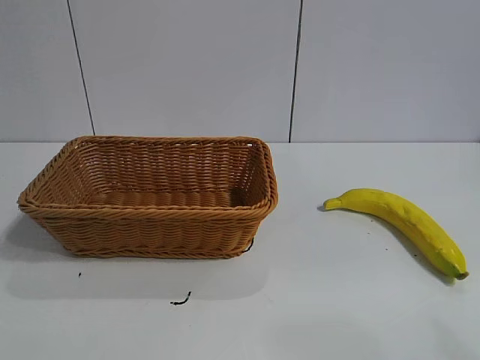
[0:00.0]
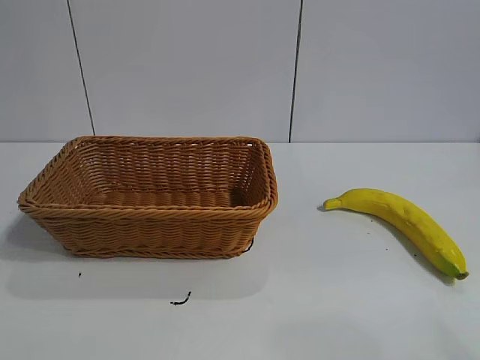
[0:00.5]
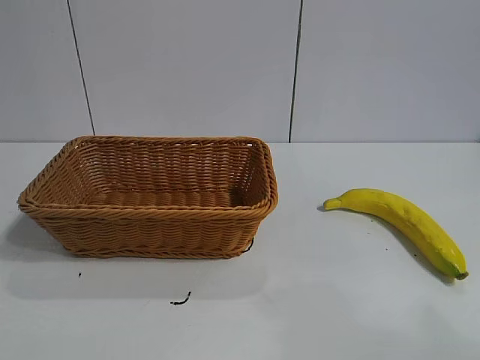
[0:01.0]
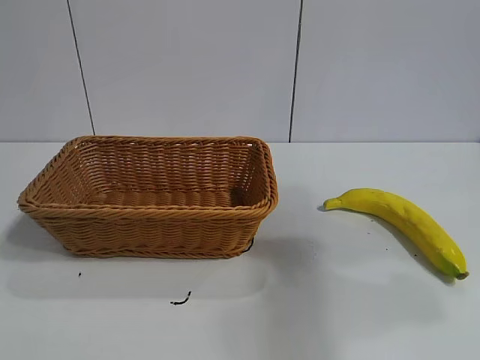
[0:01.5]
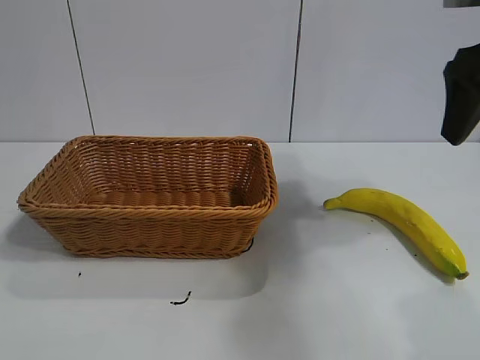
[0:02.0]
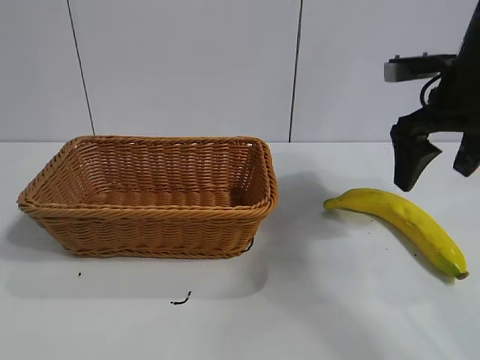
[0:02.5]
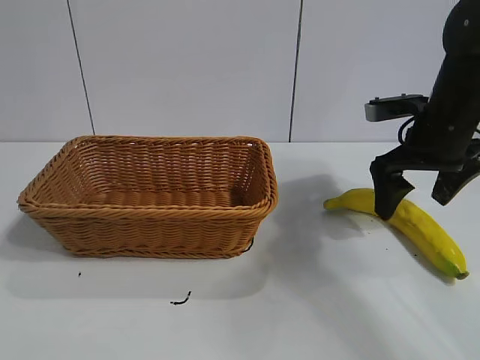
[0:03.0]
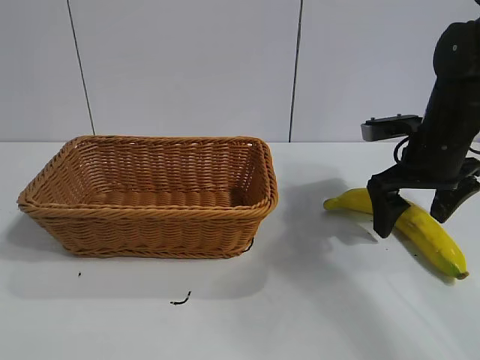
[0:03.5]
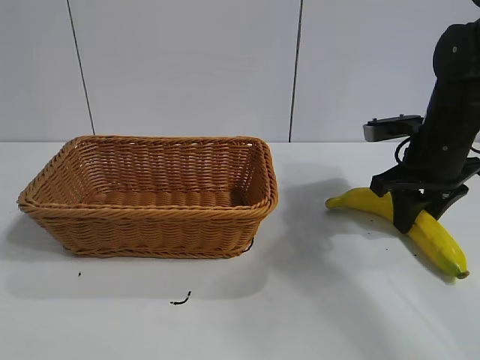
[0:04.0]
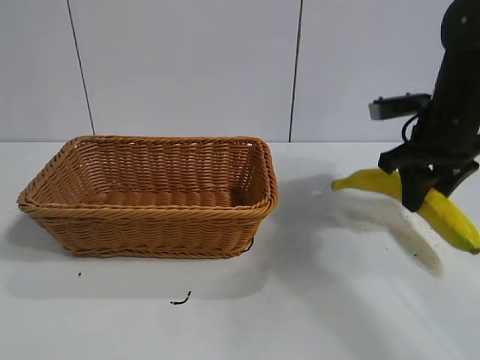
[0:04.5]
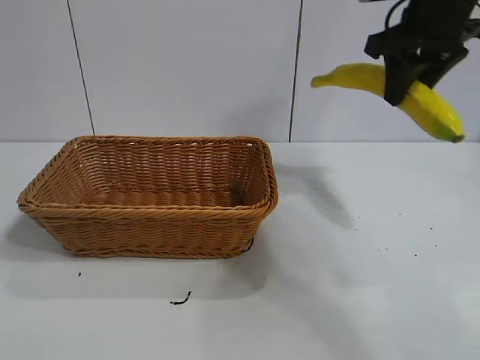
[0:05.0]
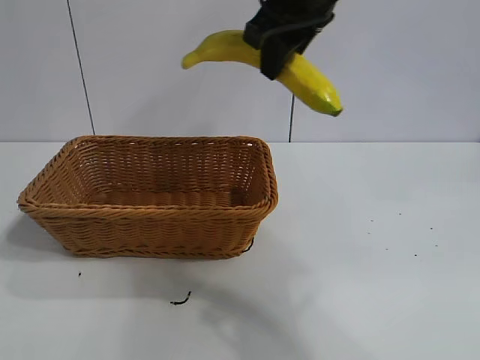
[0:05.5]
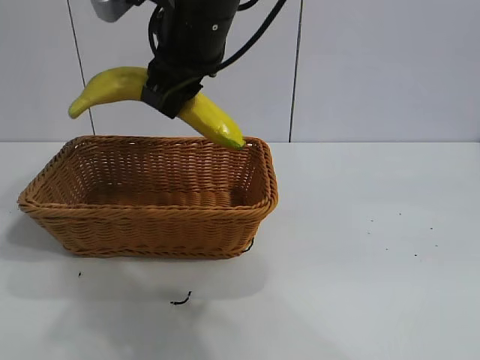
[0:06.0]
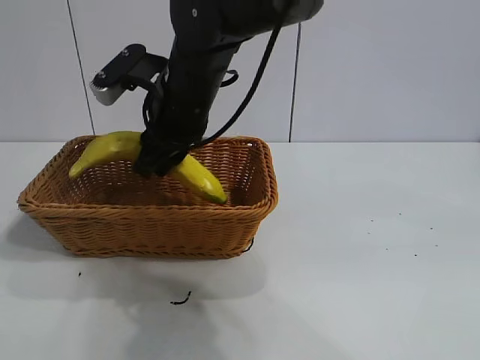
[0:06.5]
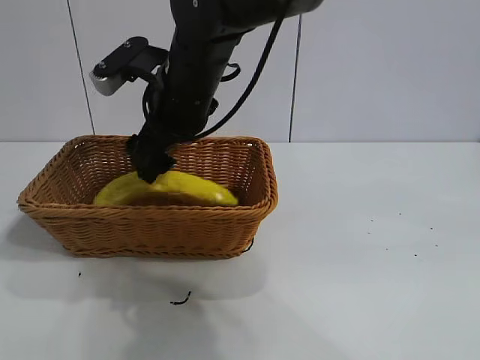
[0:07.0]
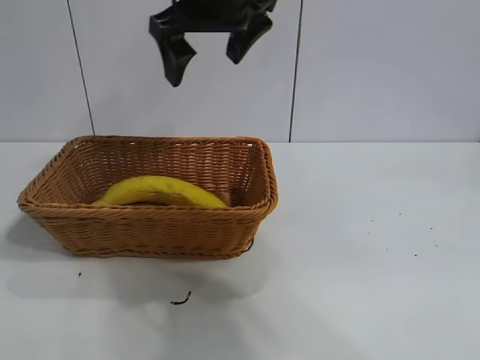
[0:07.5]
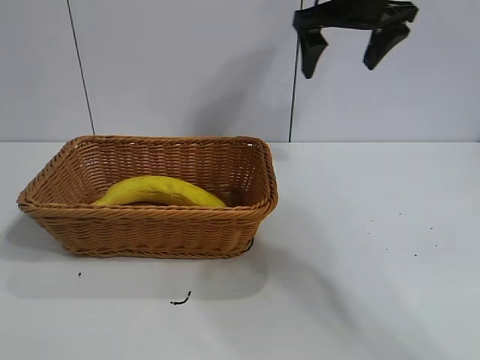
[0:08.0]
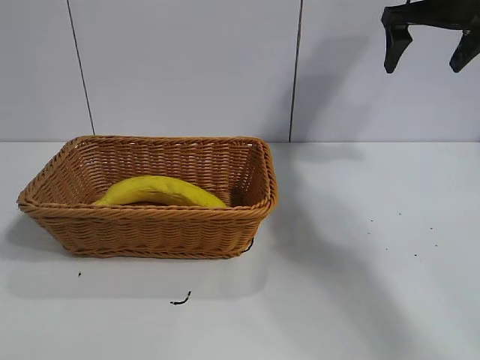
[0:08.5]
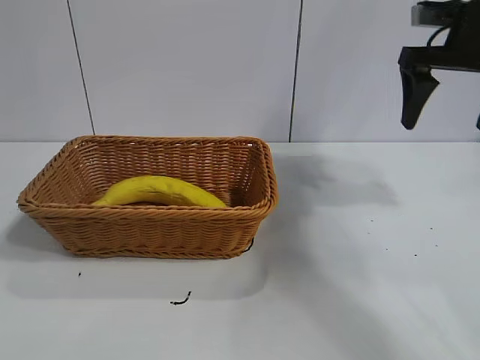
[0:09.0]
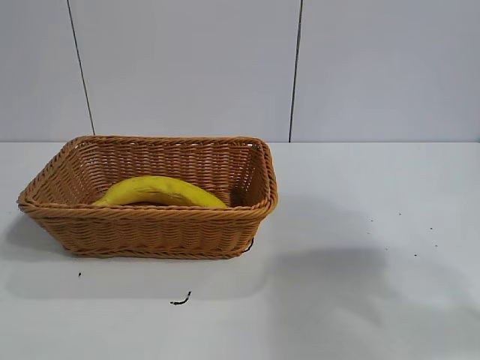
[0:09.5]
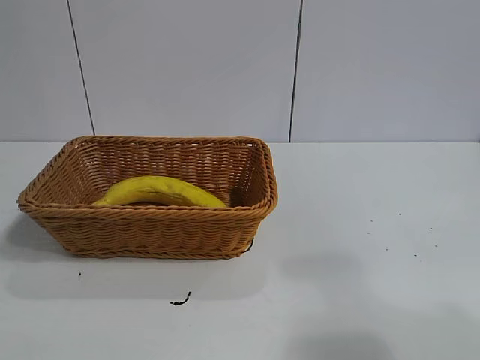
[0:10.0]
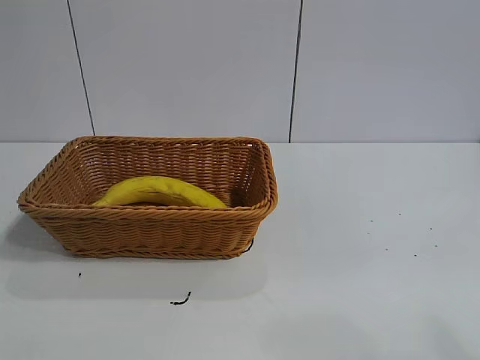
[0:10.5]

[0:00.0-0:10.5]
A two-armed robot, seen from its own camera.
Task of the whole recording: pick up the banana and put it into the basket.
Step, 0:02.0 to 0:04.0: Grasp the banana with right gripper.
Step, 0:04.5 to 0:07.0: Place the banana in the basket with right gripper.
